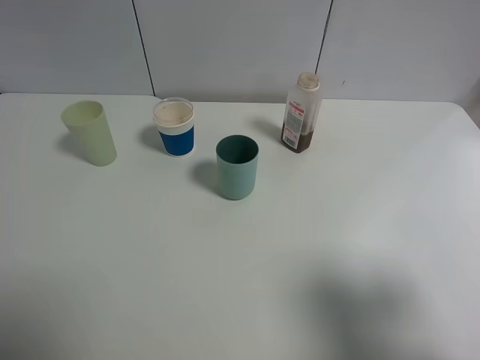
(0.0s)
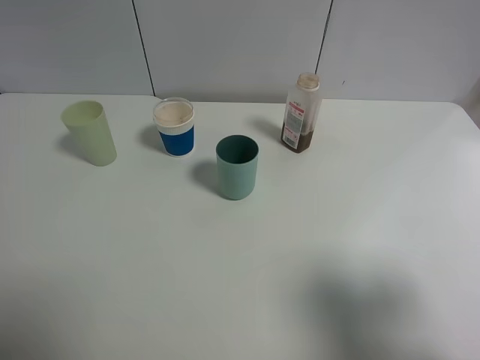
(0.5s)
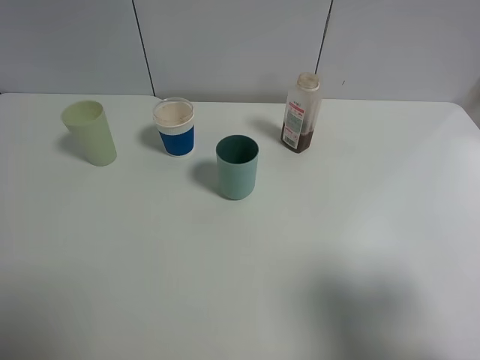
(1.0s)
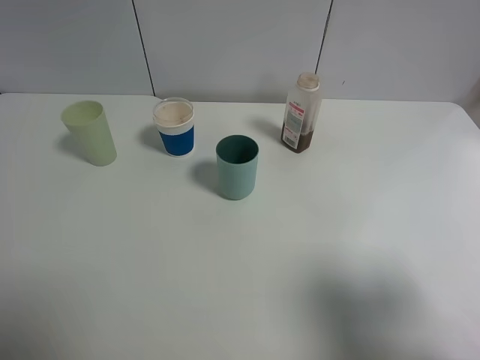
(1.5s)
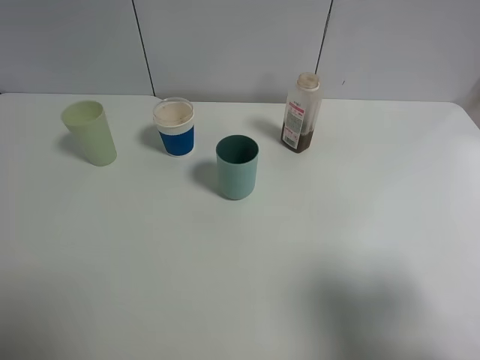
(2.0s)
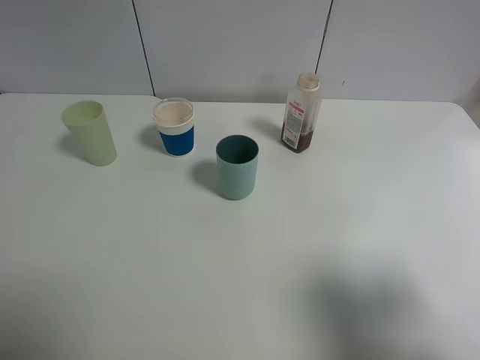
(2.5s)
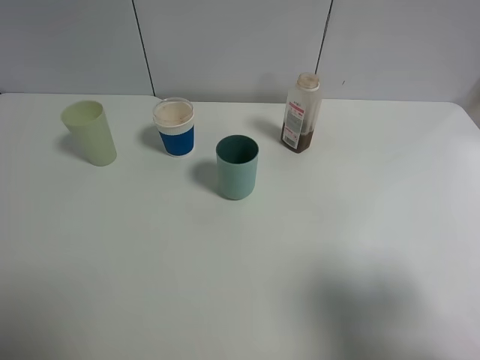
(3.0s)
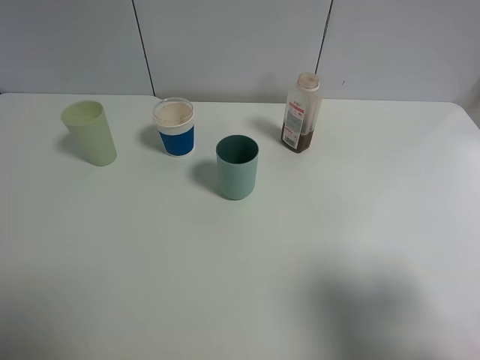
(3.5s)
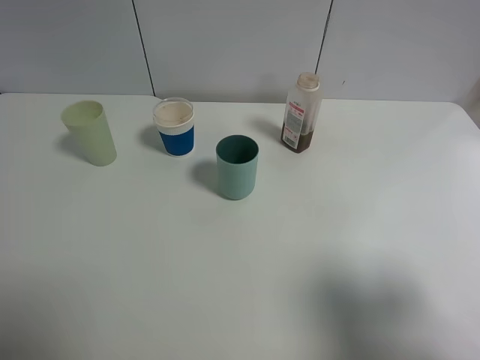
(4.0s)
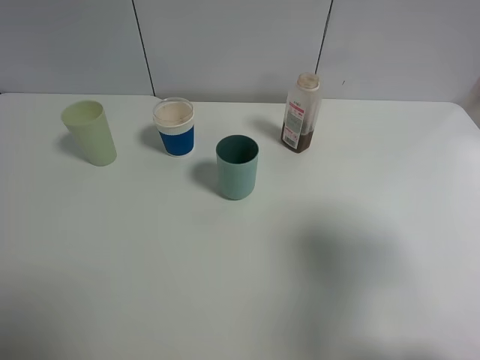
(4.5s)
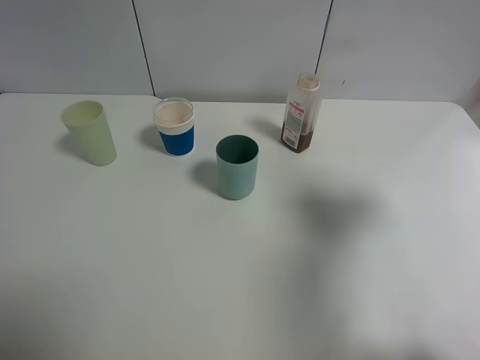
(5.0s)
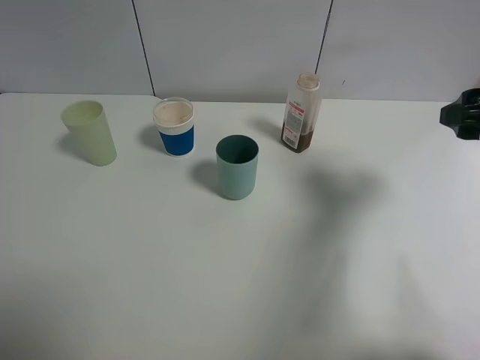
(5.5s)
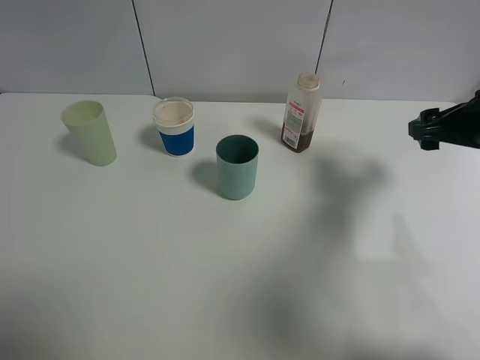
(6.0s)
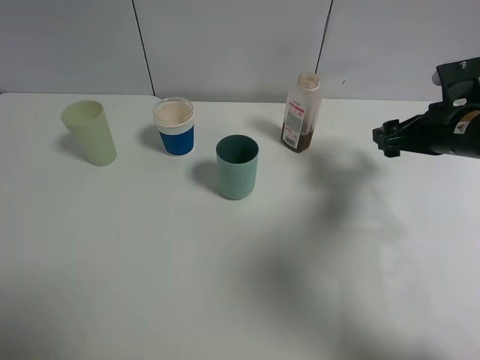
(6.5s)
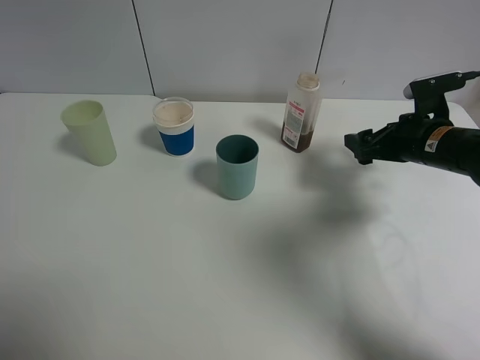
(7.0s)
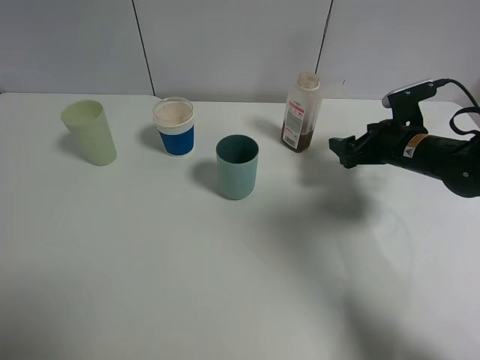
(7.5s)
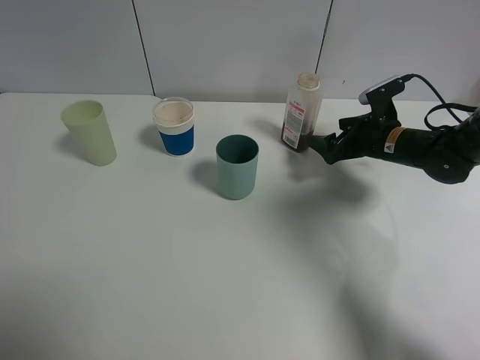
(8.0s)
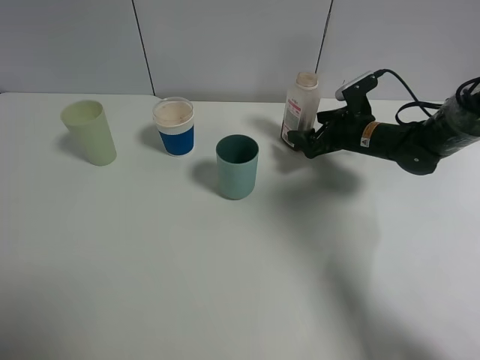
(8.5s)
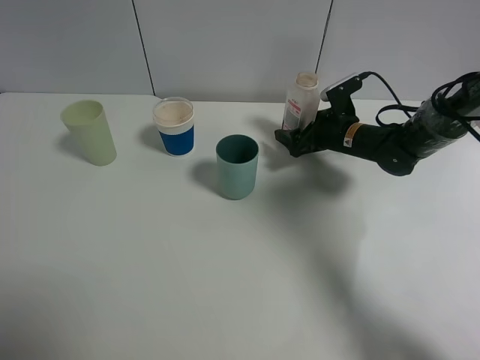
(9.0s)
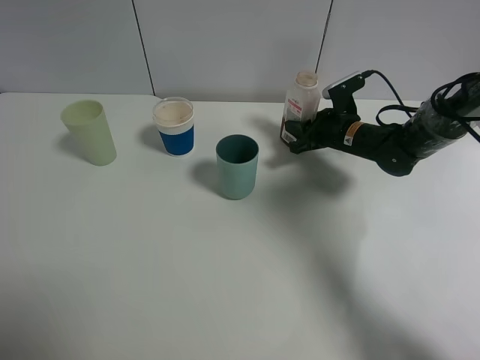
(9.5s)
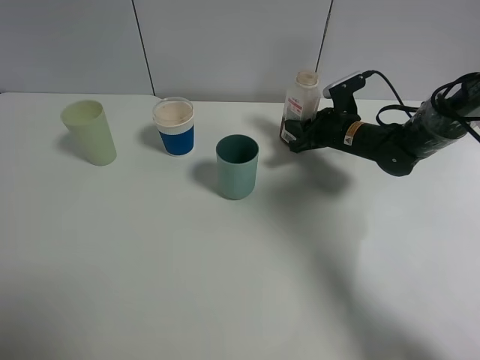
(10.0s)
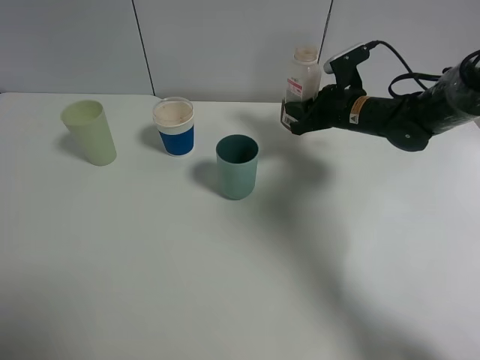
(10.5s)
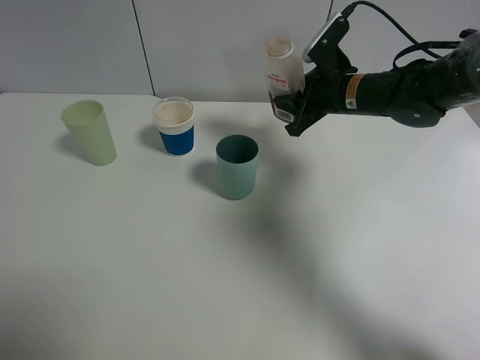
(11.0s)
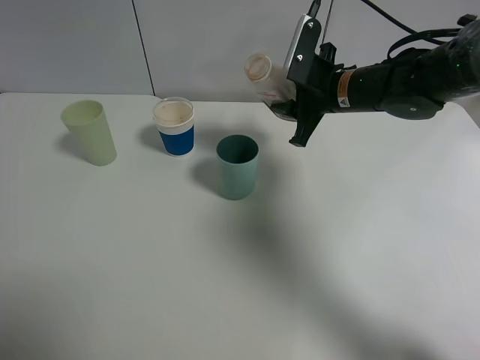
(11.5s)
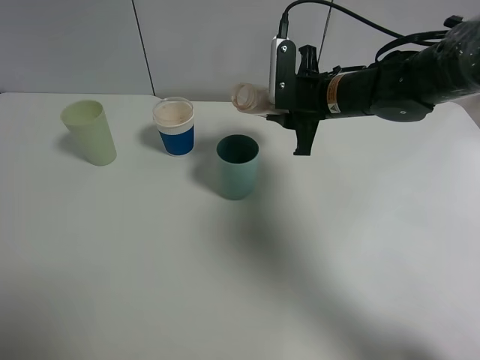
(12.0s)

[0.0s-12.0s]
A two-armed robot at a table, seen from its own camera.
Task of the whole recording: use a gripper to hold the bottle of the drink and pour it into a random cup.
Step, 0.0s to 9.5s: Grasp the cranberry juice bottle with the right gripper.
0.0s to 4.0s: Both grippers stay about where they are.
4.0s to 6.0s: The right gripper heads forward, covering about 25 cm.
6.0s to 8.0s: The right gripper travels downward, forward and to the left by some 15 cm.
8.0s to 10.0s: The right gripper goes approximately 5 cm to the left, and closes up.
10.0s to 12.0s: The right gripper moves upward and to the left, approximately 10 cm.

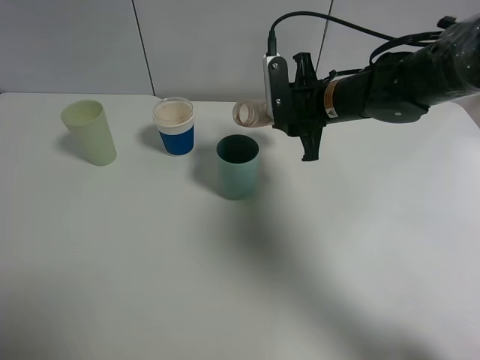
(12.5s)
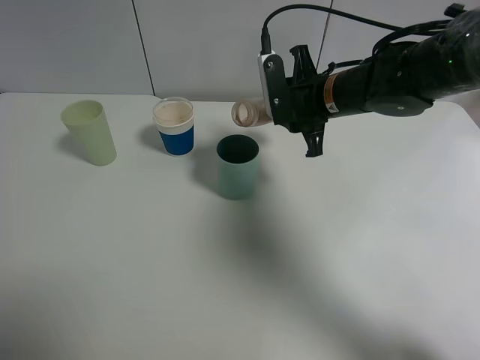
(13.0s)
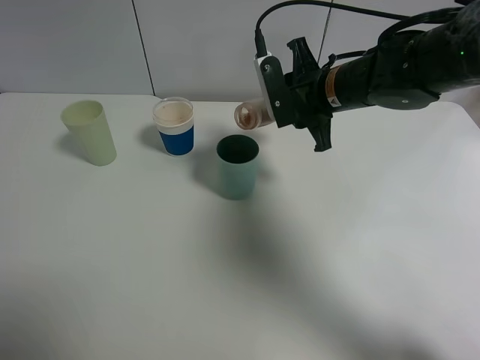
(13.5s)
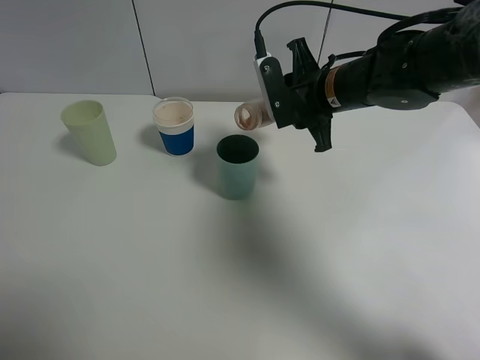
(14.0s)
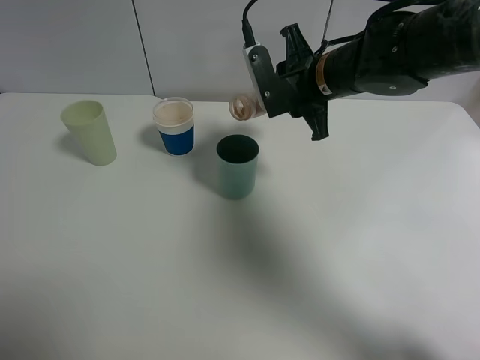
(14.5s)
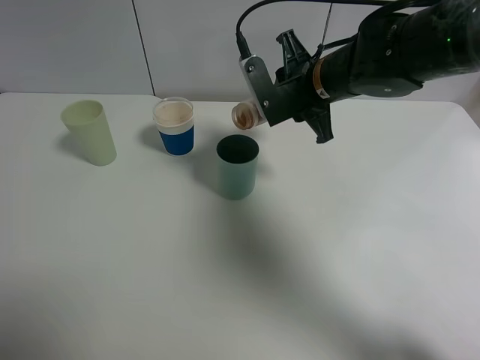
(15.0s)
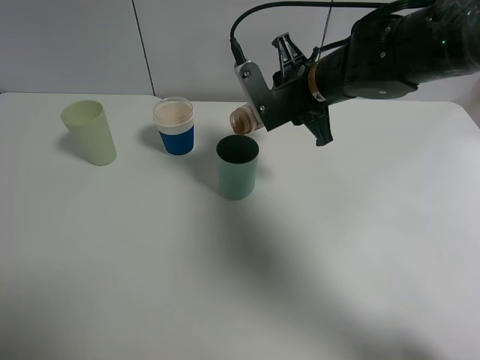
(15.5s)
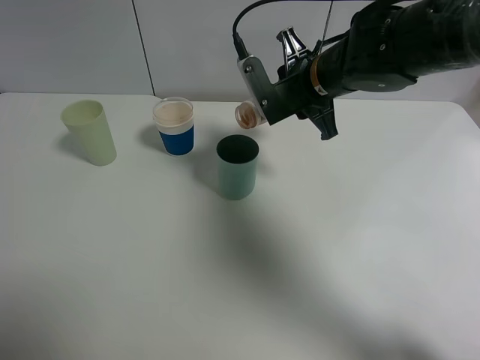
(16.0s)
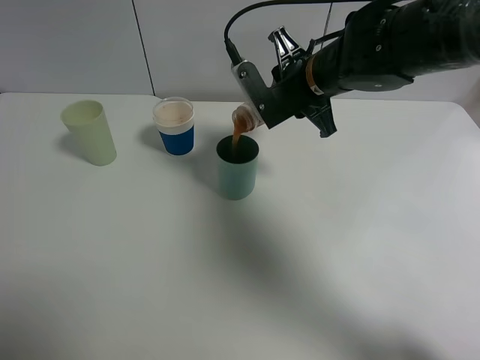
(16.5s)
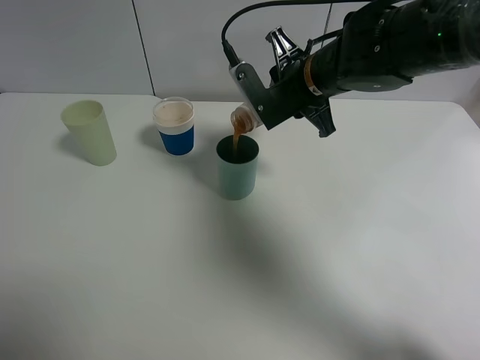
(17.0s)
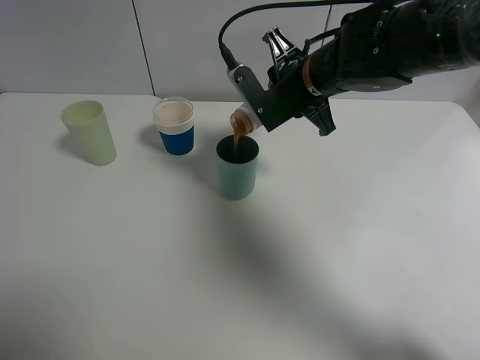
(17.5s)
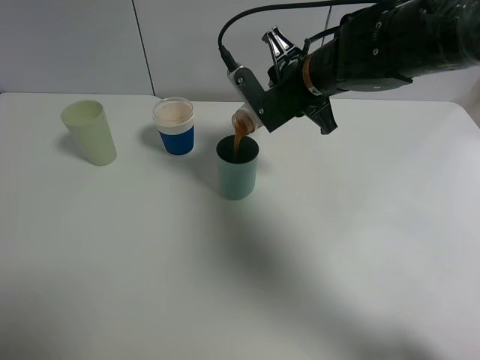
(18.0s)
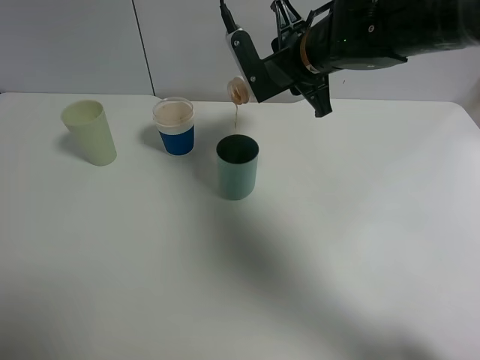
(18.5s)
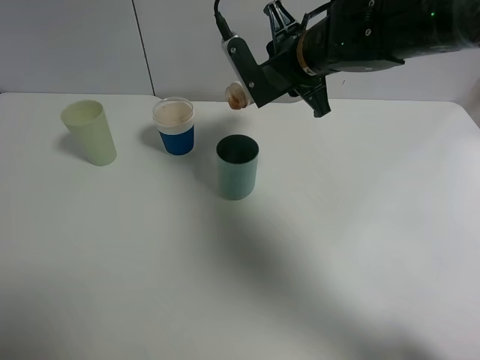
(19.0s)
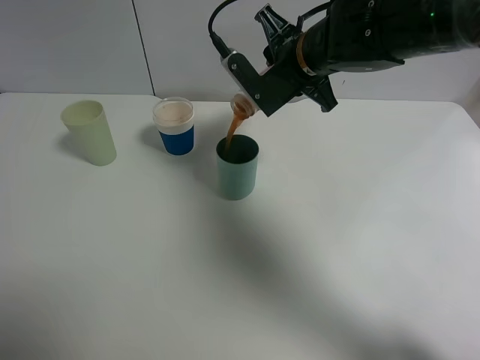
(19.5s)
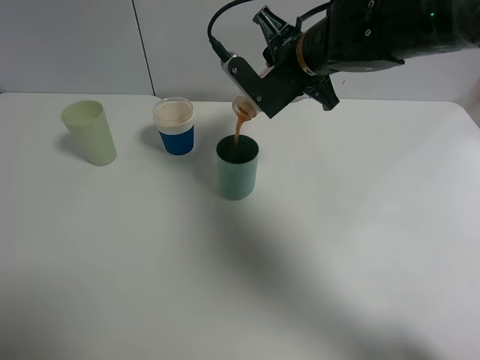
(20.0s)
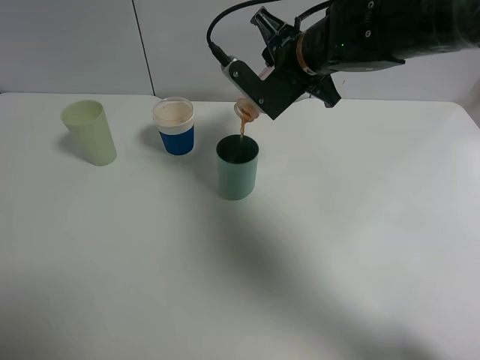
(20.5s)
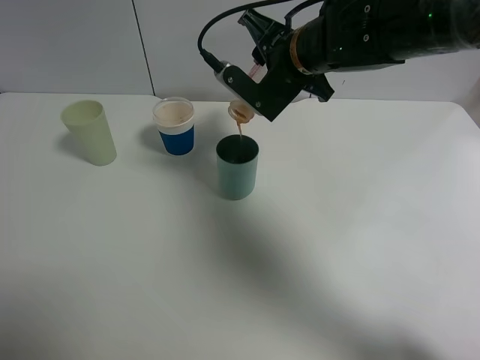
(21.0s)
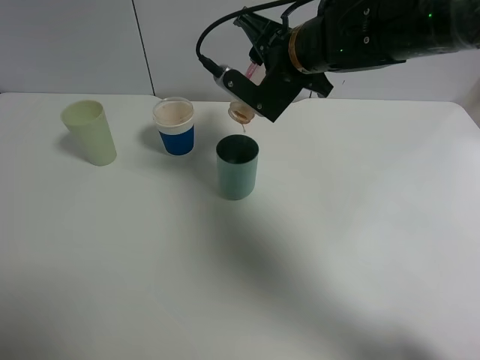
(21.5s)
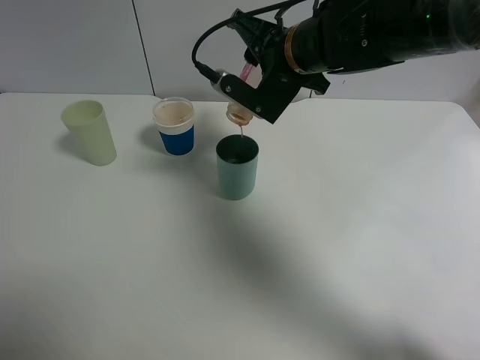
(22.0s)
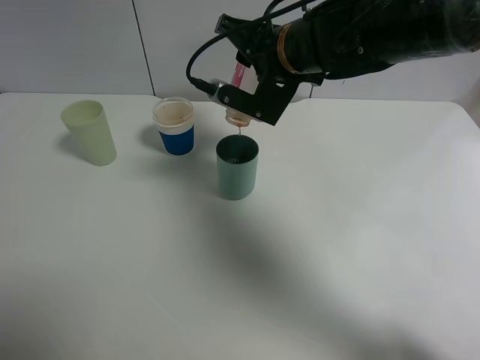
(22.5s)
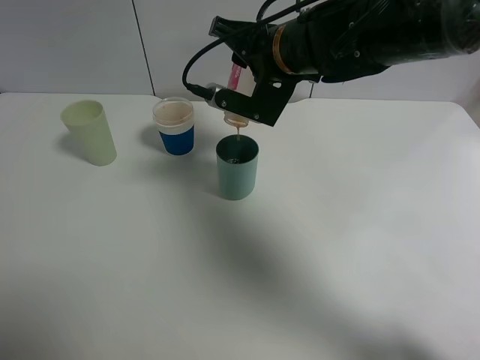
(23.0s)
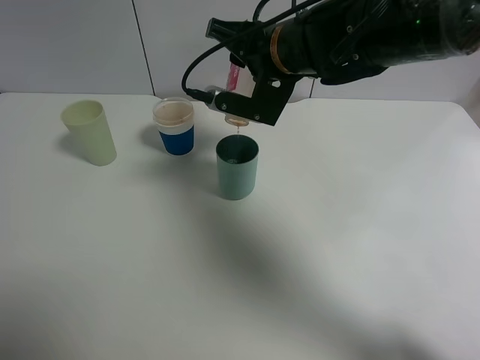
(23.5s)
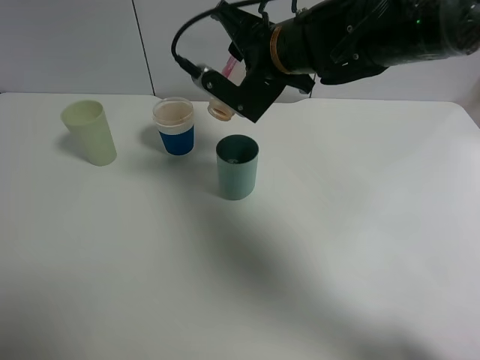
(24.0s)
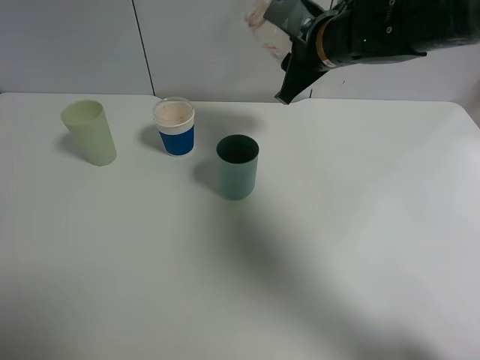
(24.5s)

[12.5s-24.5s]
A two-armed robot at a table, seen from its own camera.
Task of the whole recording: use a gripper to hold the bottle of the drink and pour it into a random cup.
Step, 12.5s to 24.0s: Pour the cranberry juice into the cyan cup with the right gripper.
12.5s to 14.5s: The grippers make only small movements.
14.5s to 18.5s: The grippers move only a little.
22.5s to 24.5s: The right gripper heads to the right, covering roughly 5 cm.

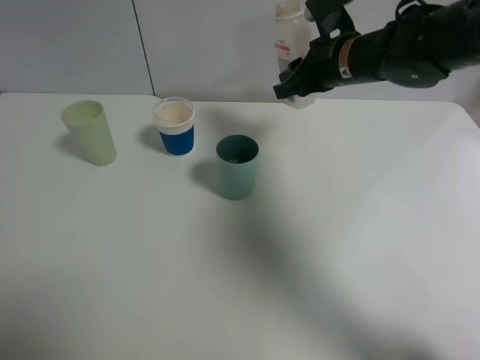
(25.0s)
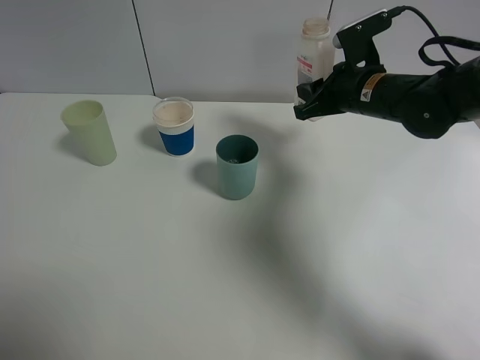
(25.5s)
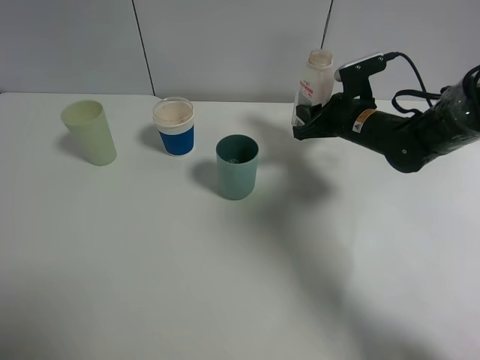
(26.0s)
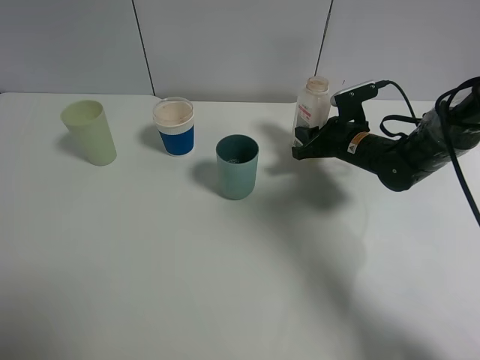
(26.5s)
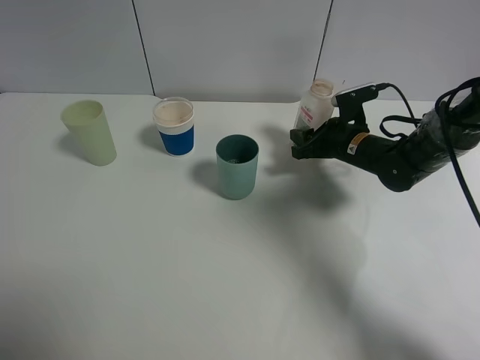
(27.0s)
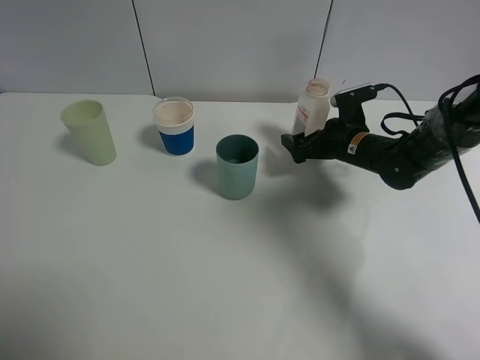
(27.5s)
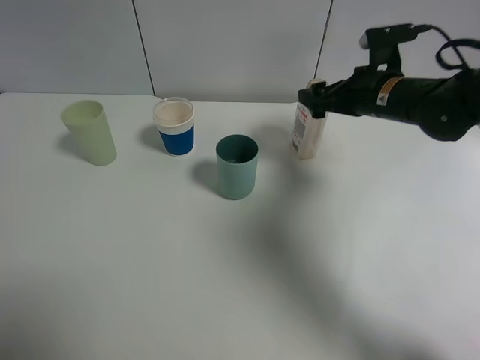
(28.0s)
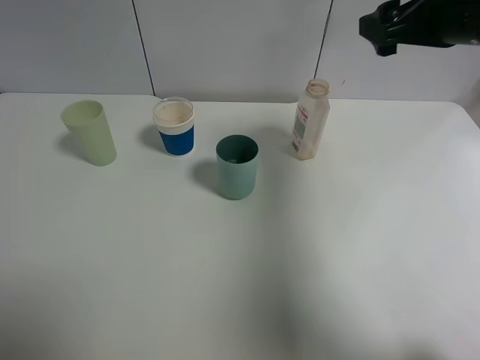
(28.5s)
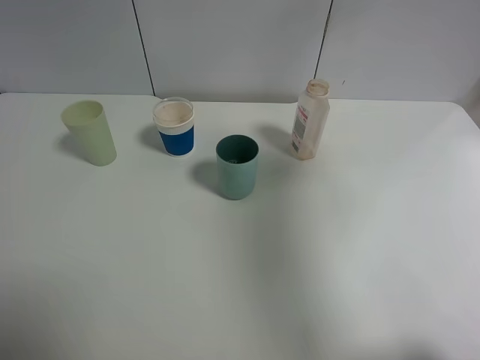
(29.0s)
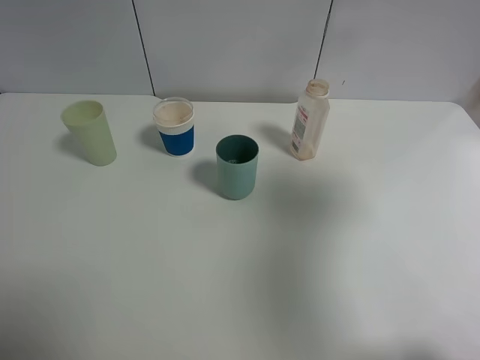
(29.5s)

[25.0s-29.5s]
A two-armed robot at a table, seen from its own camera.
Task of the whole recording: use a gripper to hold the bottle of the drink and pour it into a random cup.
Step, 25.0s to 27.0s: Place the cranberry juice bottle on the table with the right gripper.
25.0s to 27.0s: The right gripper shifts some 15 cm downward, and opens.
27.0s to 29.5s: The right gripper travels upward and backward by about 40 cm, and opens.
